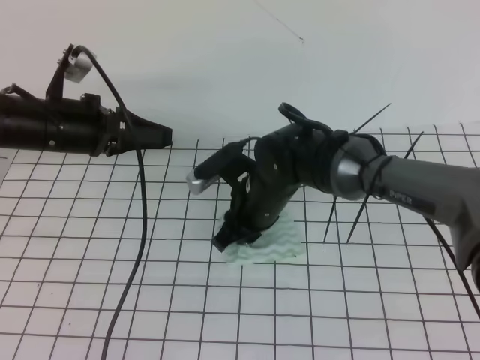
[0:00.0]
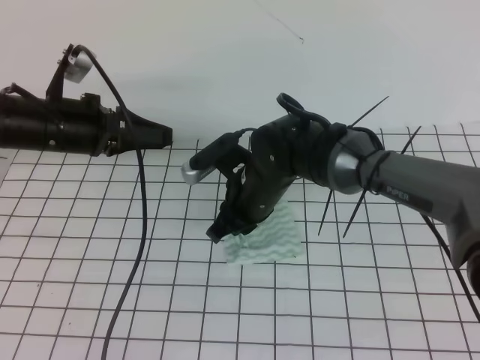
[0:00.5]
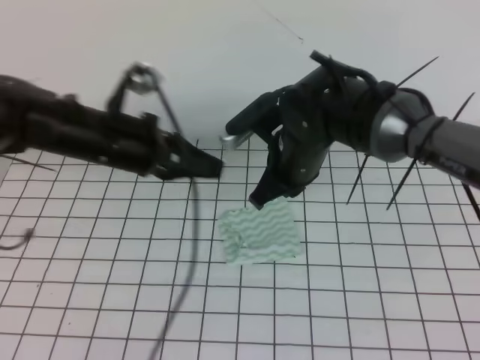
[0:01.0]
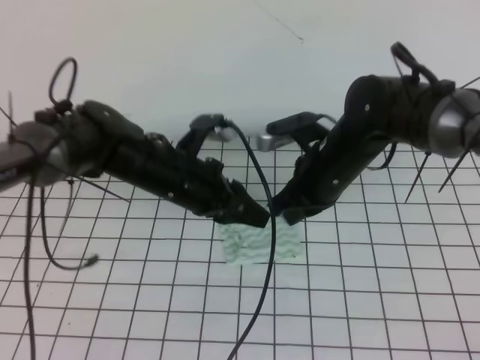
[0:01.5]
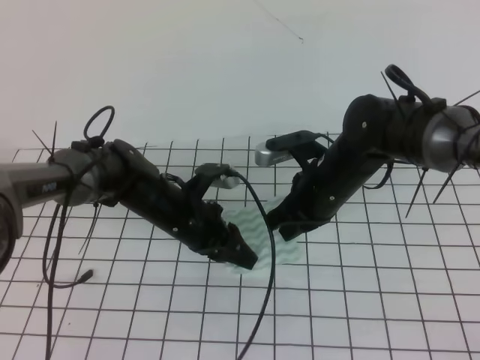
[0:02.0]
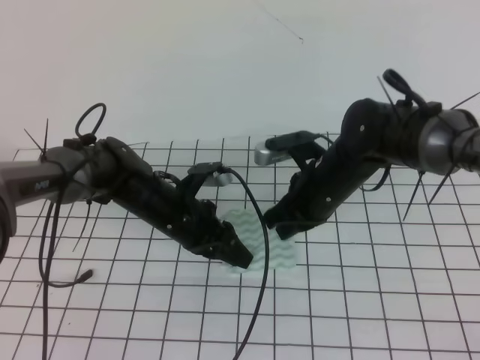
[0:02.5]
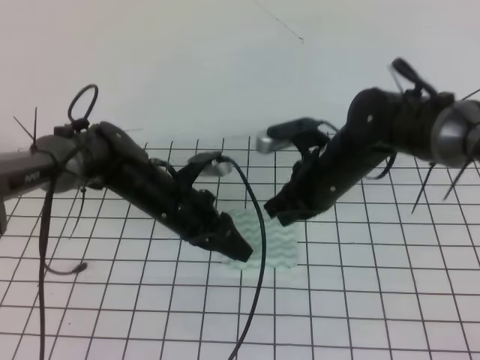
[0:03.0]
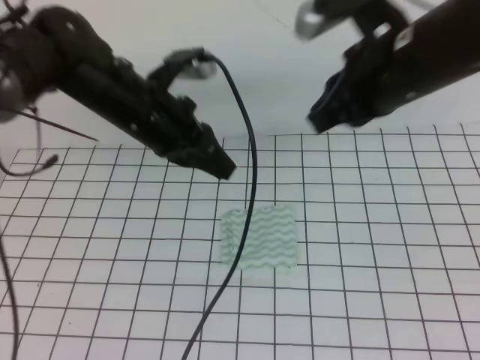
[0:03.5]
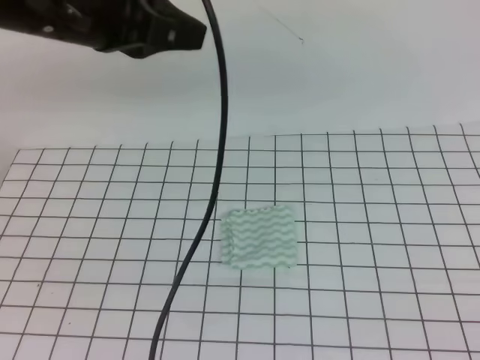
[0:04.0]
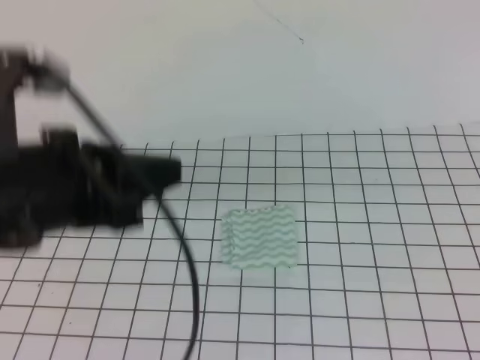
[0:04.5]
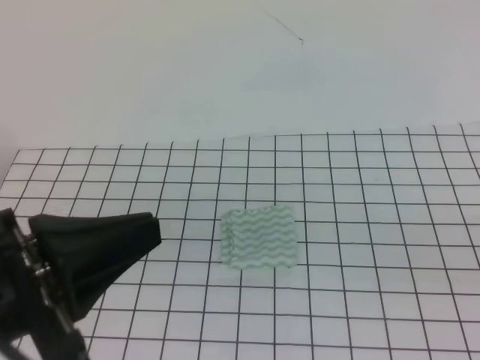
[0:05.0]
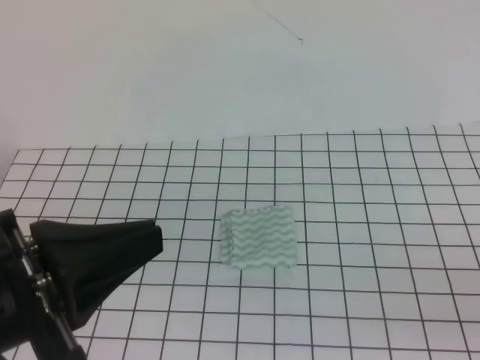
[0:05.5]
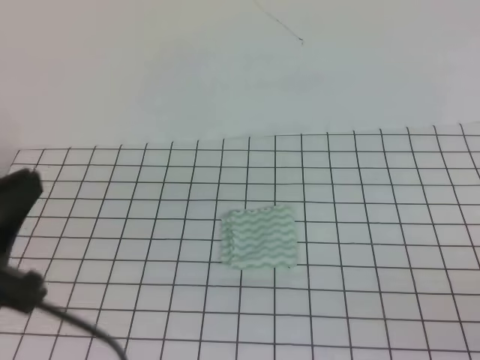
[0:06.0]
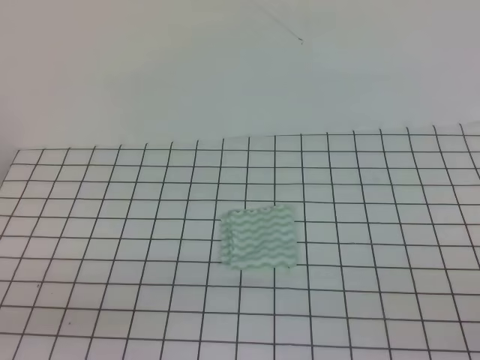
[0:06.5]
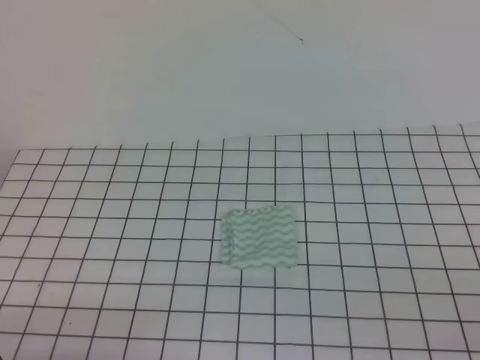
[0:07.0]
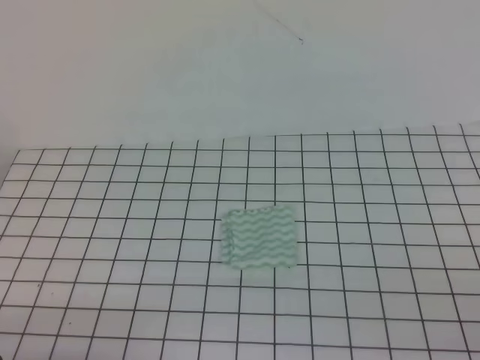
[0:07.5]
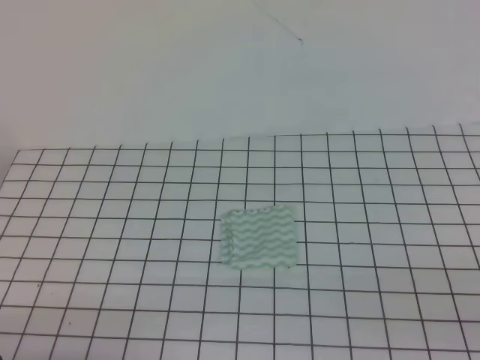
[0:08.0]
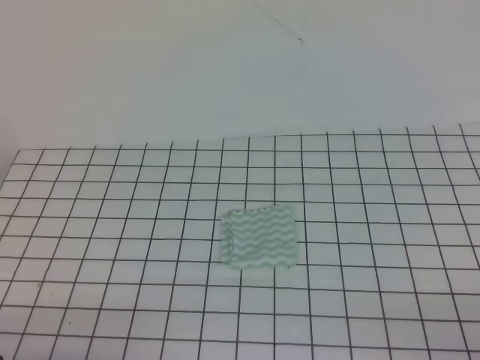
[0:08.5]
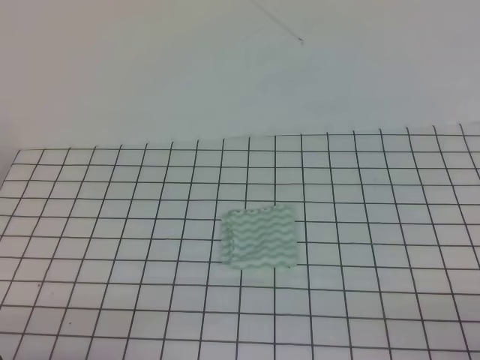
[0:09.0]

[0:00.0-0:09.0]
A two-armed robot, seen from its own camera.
0:00.0 to 0:02.0: The left gripper travels downward and to the right by about 20 cm, while the right gripper goes approximately 10 cm to the right, and closes.
0:02.0 to 0:04.5: The right gripper goes roughly 40 cm backward, upward and to the right. Meanwhile the left gripper travels upward and backward by about 30 cm, and closes up.
0:04.5 to 0:07.0: The left gripper travels downward, backward and to the left by roughly 25 cm; the right gripper heads downward, covering roughly 20 cm.
